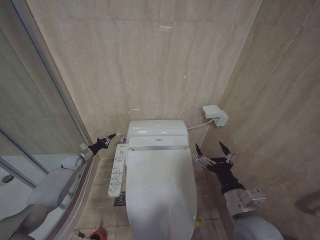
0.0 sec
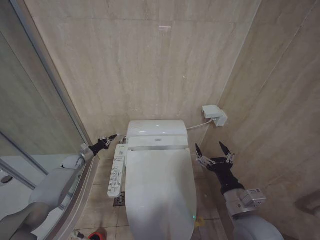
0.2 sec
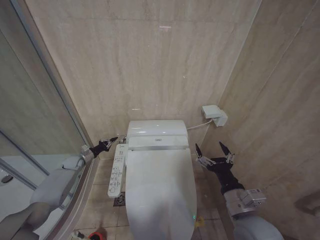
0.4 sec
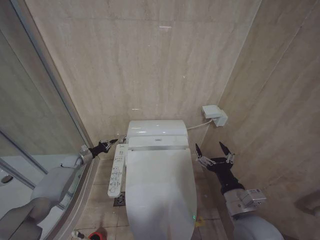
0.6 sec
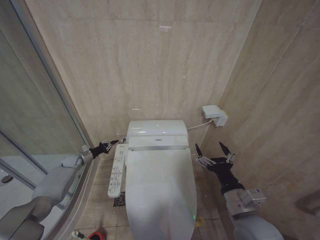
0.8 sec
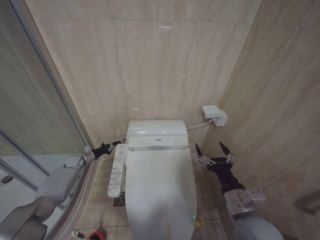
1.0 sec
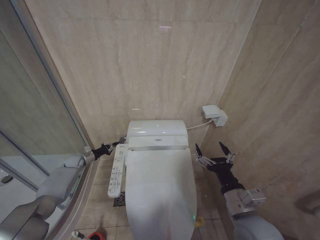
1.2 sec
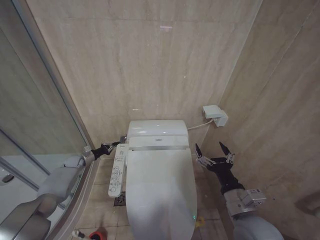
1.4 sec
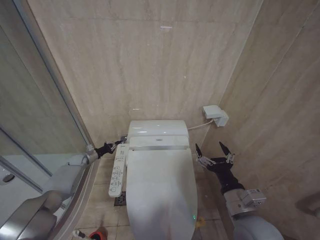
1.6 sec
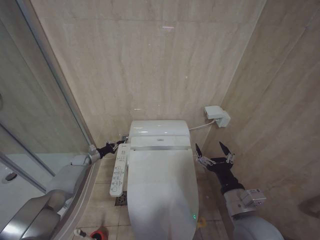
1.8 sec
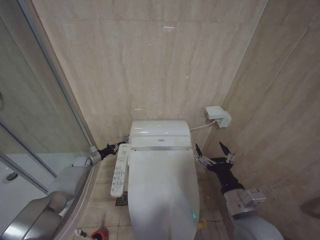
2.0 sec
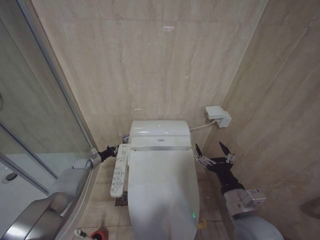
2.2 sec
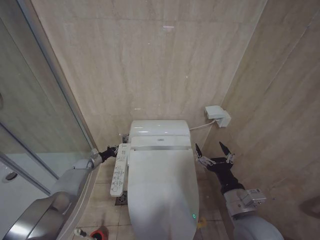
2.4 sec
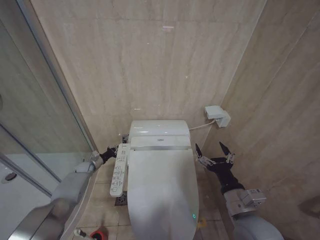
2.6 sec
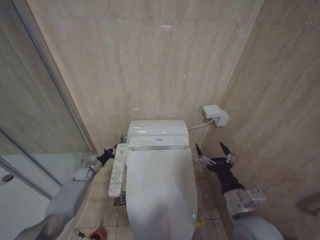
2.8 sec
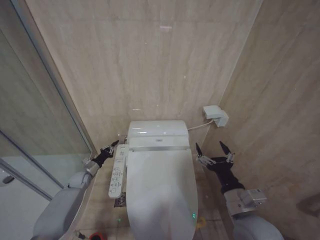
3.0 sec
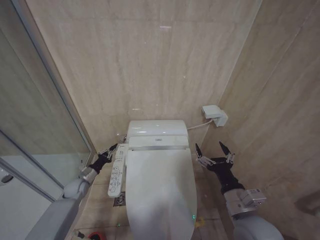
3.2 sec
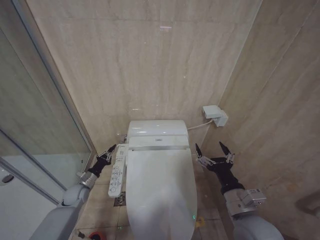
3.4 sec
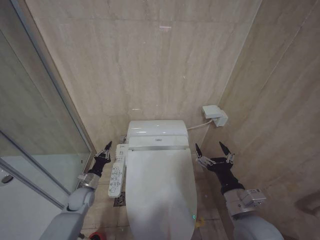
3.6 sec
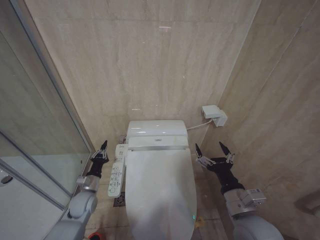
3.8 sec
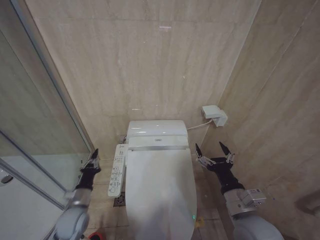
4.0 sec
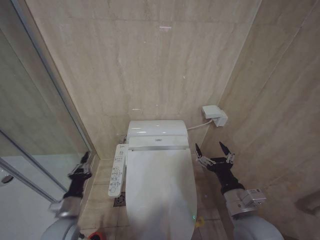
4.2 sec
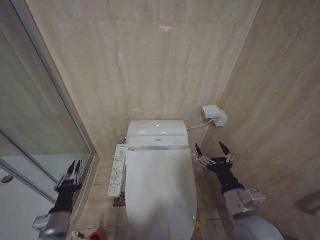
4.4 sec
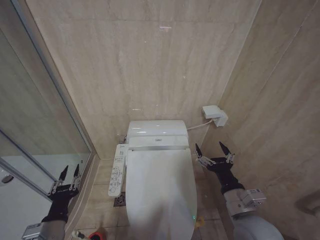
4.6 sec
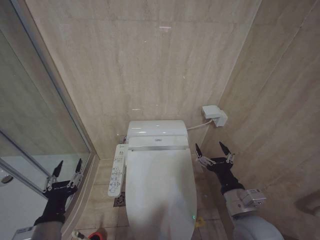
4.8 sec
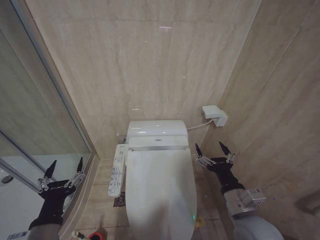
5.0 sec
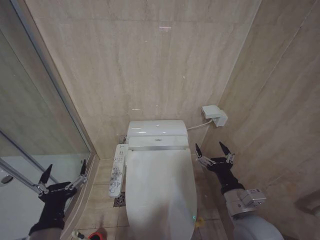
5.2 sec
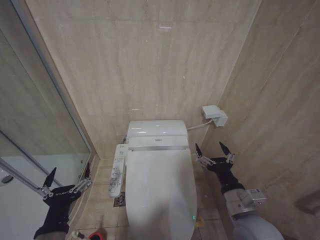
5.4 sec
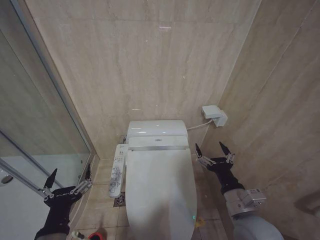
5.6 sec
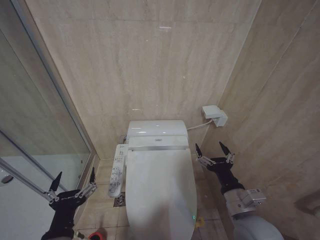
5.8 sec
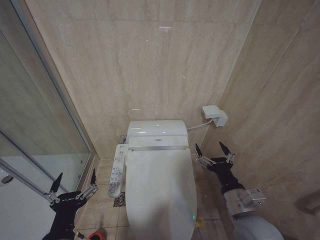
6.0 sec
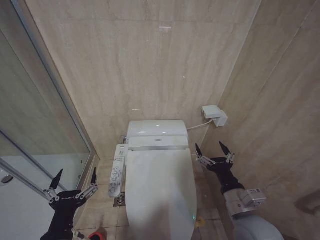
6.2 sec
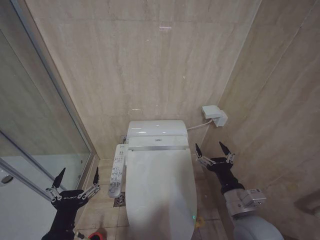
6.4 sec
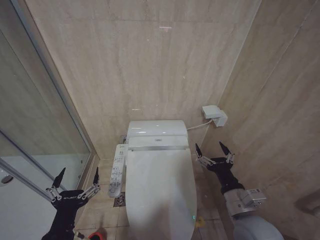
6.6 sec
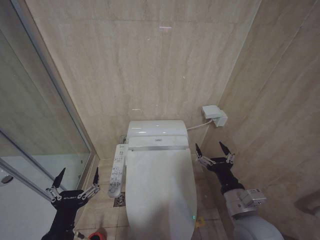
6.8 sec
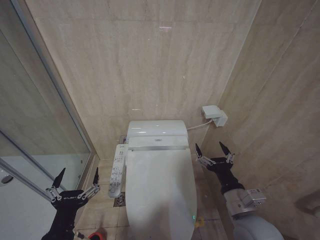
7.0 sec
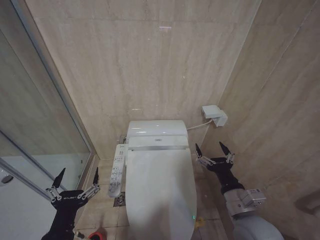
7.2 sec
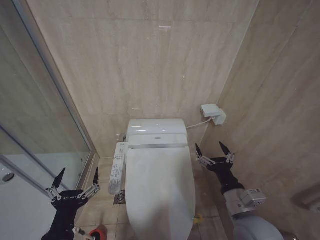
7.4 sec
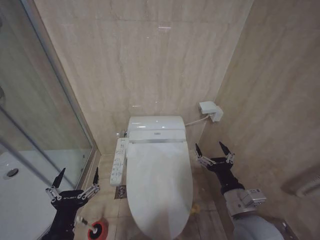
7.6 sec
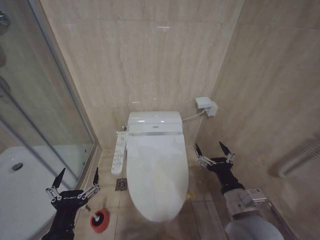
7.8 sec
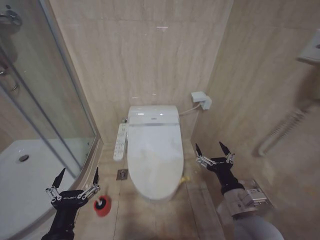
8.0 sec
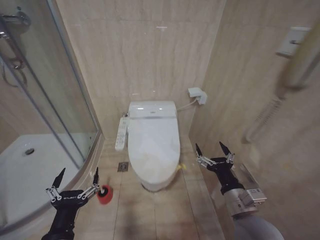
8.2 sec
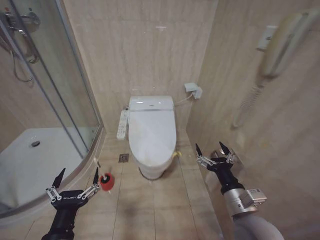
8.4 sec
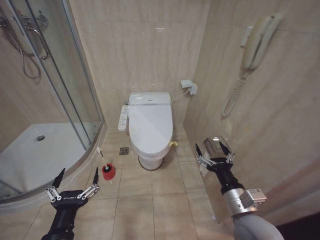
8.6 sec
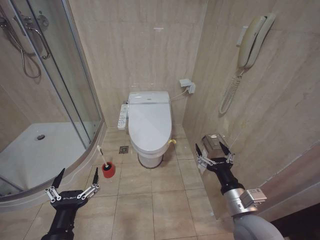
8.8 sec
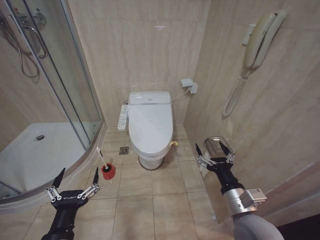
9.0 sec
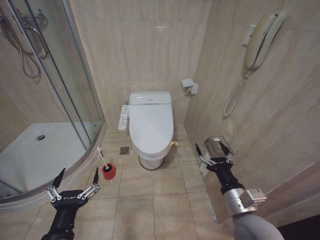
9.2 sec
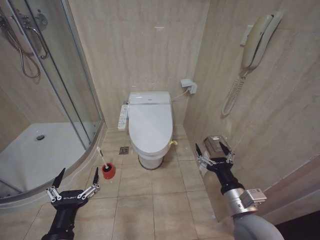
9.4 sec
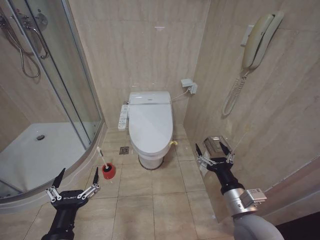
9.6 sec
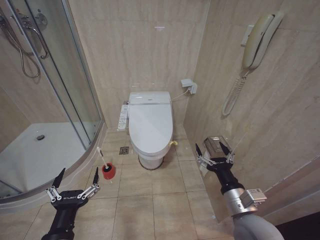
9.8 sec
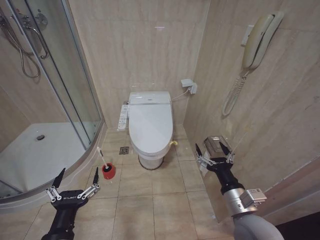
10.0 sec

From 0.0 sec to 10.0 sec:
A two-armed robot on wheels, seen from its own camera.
Task of the whole recording: Open the toilet lid, clean the toilet bowl with a toilet brush, close the toilet lid, and flush.
From 0.0 sec to 1.4 sec: The grippers stay close to where they were, moving slightly.
From 1.4 sec to 2.8 sec: The left gripper moves to the right and downward, roughly 5 cm.
From 2.8 sec to 4.2 sec: The left gripper travels backward by roughly 25 cm.
From 4.2 sec to 5.8 sec: The left gripper travels backward, upward and to the right by roughly 20 cm, and opens.
From 8.6 sec to 10.0 sec: The two grippers keep their place.

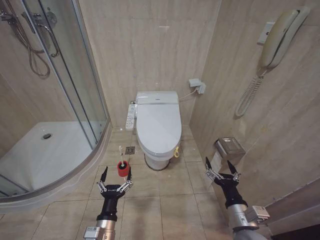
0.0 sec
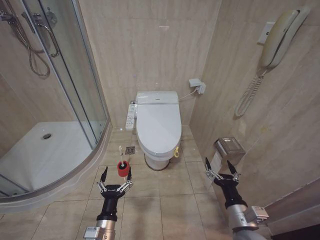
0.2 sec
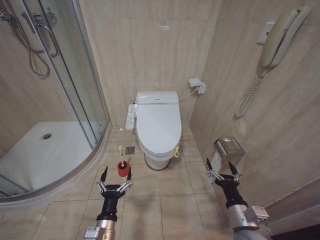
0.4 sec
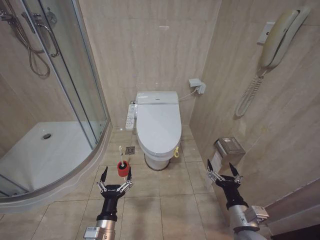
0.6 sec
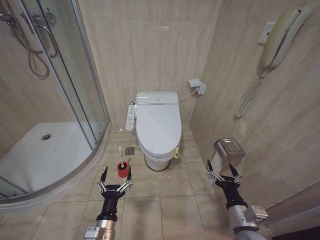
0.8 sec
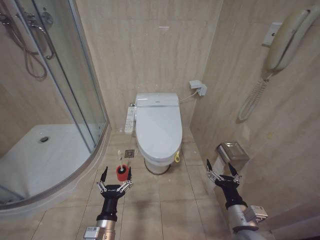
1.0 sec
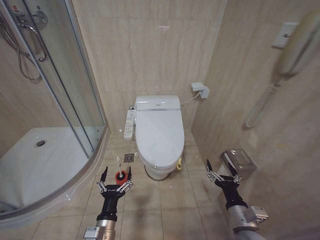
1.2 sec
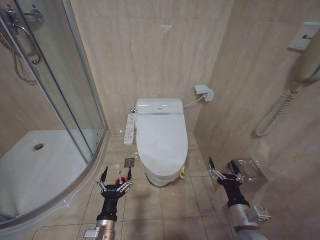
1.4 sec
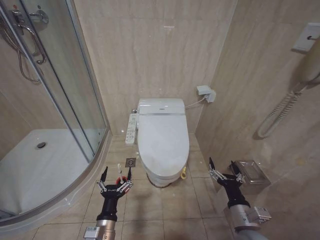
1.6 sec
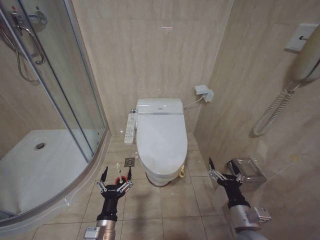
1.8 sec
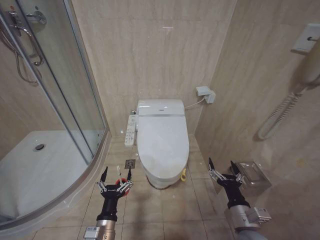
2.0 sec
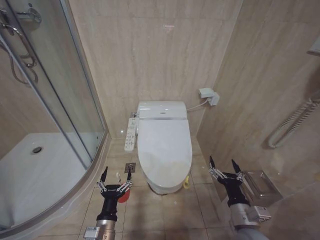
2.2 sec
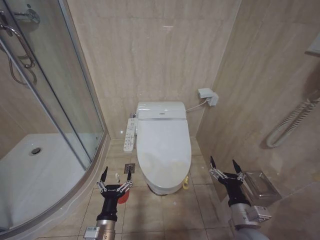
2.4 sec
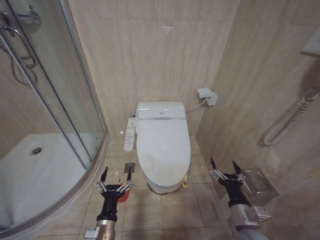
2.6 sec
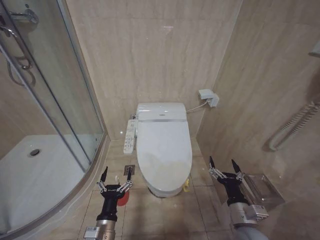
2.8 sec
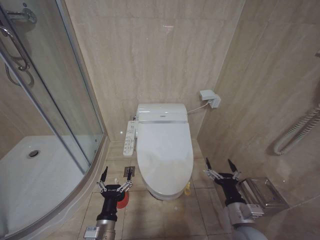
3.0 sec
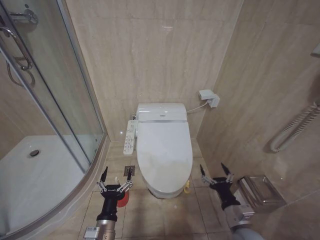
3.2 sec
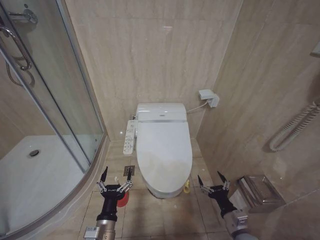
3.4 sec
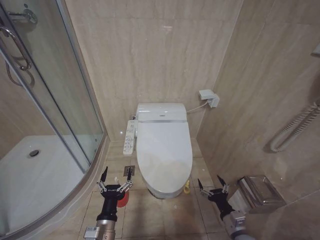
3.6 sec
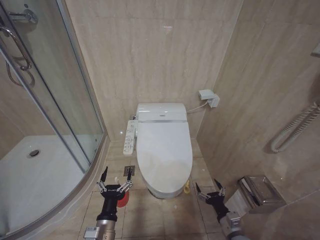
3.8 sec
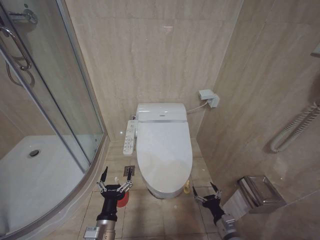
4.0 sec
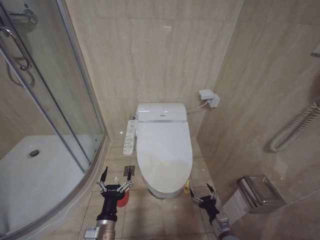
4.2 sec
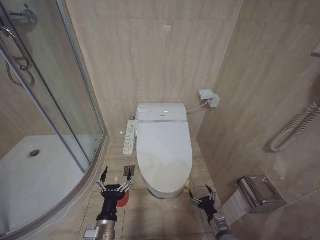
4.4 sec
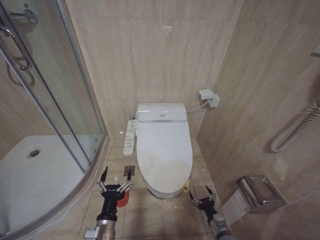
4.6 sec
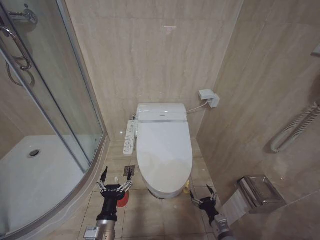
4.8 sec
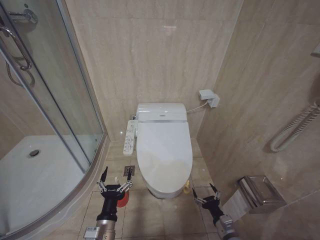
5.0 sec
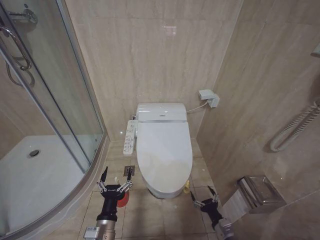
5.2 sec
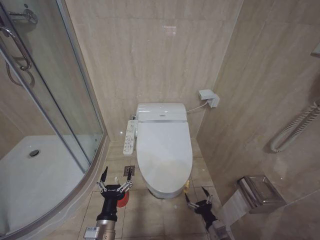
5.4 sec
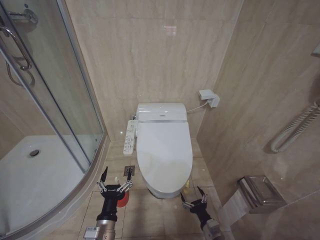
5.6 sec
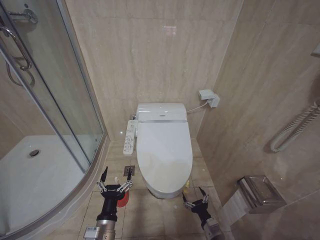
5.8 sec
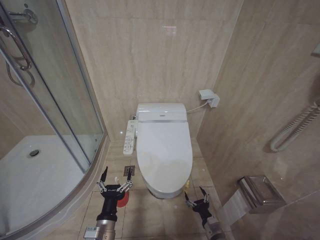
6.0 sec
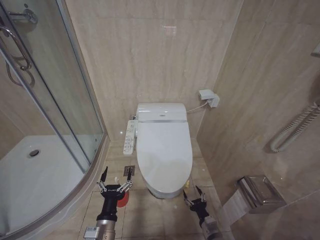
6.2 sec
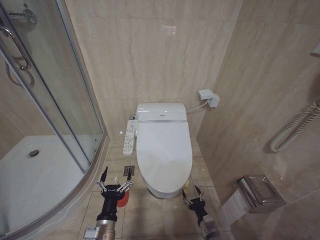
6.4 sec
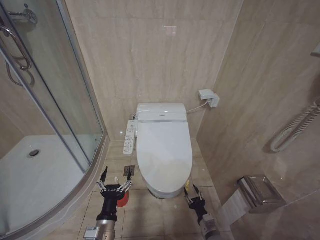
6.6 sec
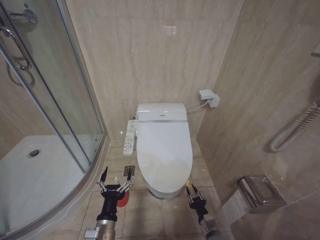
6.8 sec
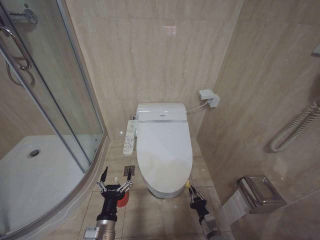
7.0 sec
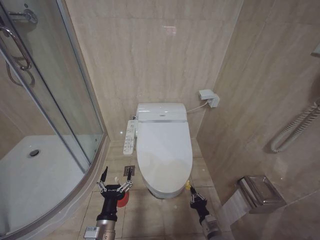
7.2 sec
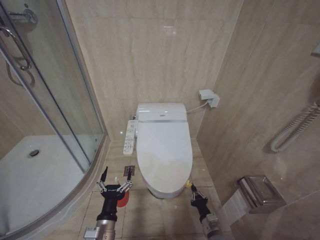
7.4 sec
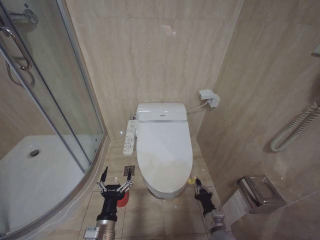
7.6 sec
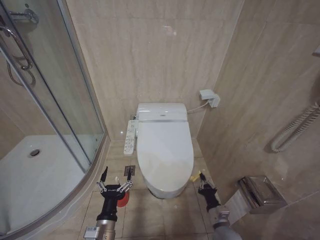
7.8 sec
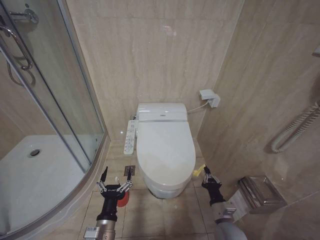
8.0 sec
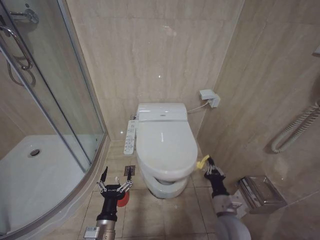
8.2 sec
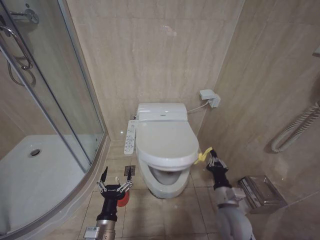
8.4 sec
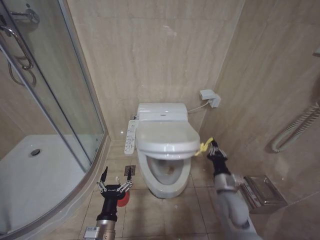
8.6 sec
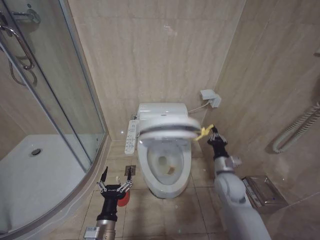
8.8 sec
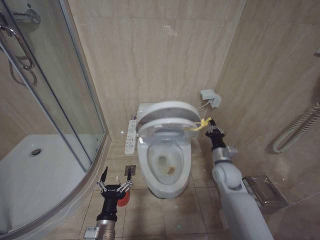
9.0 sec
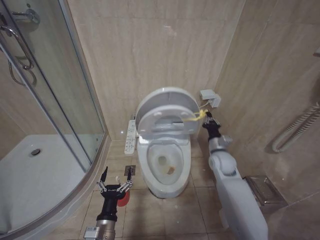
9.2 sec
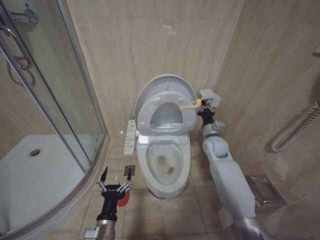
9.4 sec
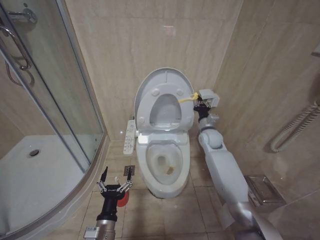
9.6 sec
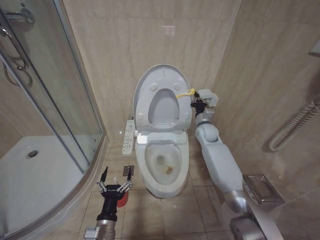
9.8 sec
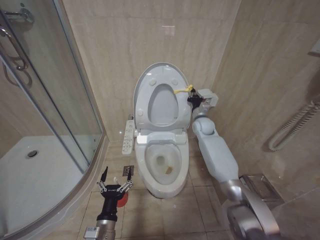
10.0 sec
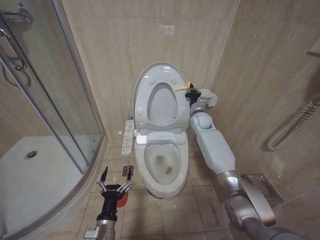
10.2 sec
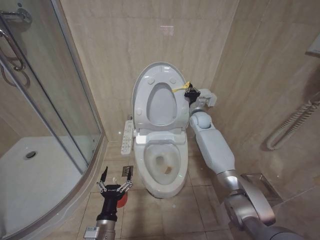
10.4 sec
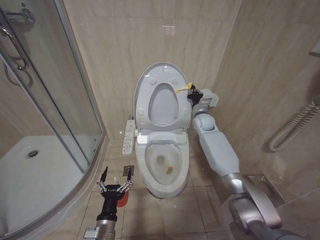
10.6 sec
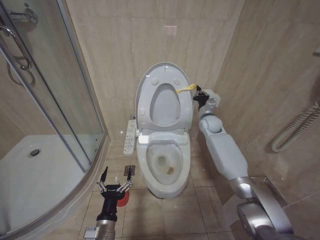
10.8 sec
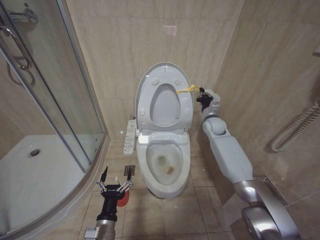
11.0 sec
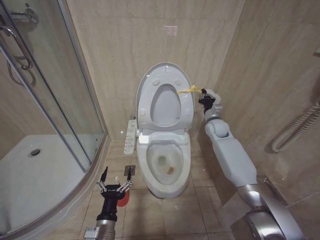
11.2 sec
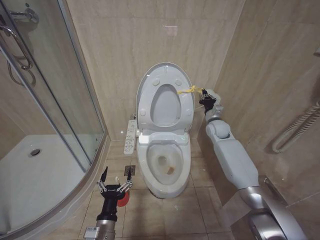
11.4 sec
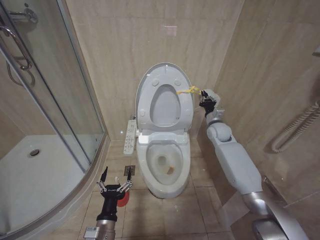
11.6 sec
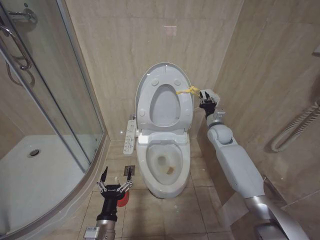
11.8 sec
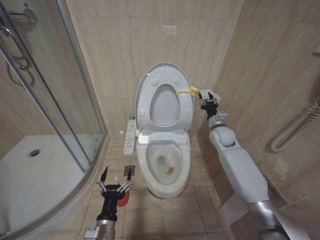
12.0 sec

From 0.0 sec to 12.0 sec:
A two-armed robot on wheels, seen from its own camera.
Task of the whole recording: Open the toilet lid, clean the toilet bowl with a toilet brush, close the toilet lid, and flush.
From 1.6 sec to 3.0 sec: There are only small adjustments of the grippers.
From 3.0 sec to 4.4 sec: The right gripper moves downward, some 15 cm.
From 6.0 sec to 7.6 sec: The right gripper closes up.
From 7.6 sec to 9.0 sec: The right gripper goes roughly 25 cm upward and forward.
From 9.0 sec to 10.4 sec: The right gripper shifts about 25 cm forward and upward.
From 10.4 sec to 12.0 sec: The right gripper heads backward and to the right, covering about 10 cm.
